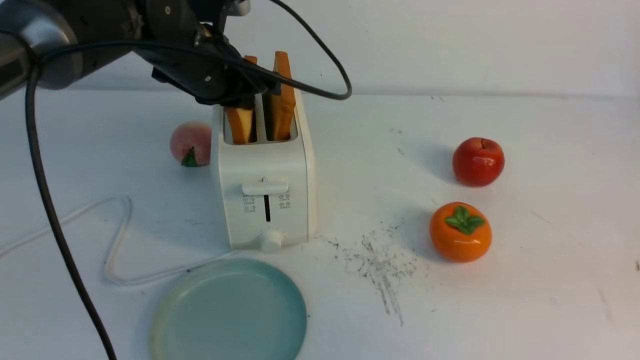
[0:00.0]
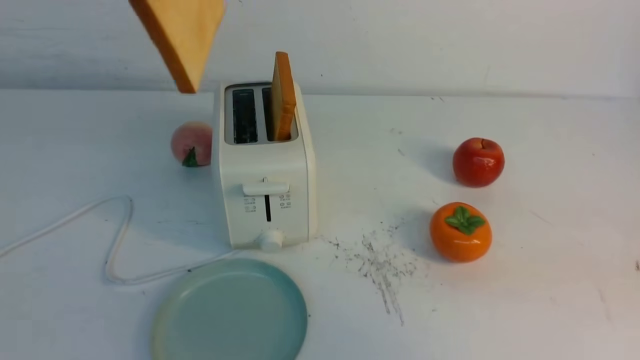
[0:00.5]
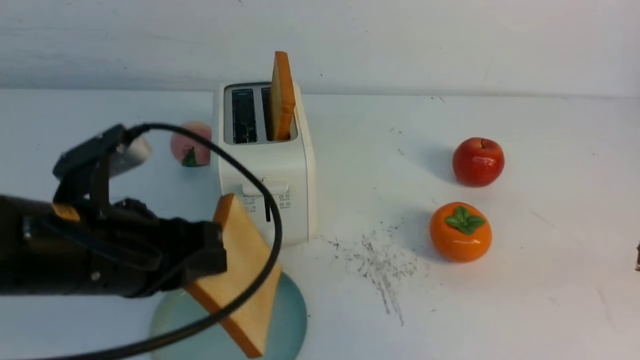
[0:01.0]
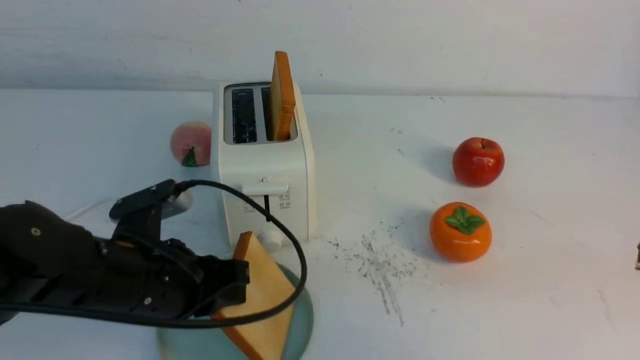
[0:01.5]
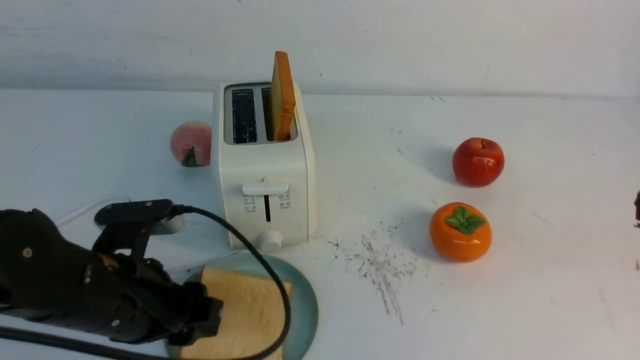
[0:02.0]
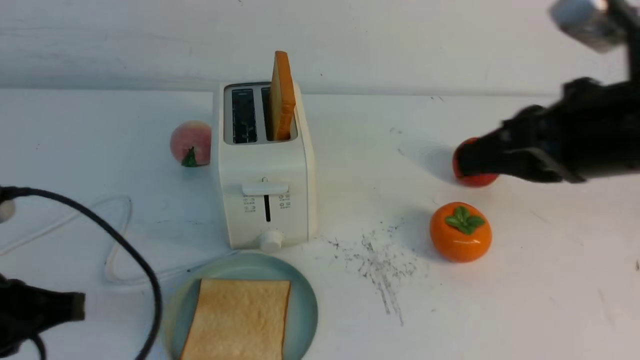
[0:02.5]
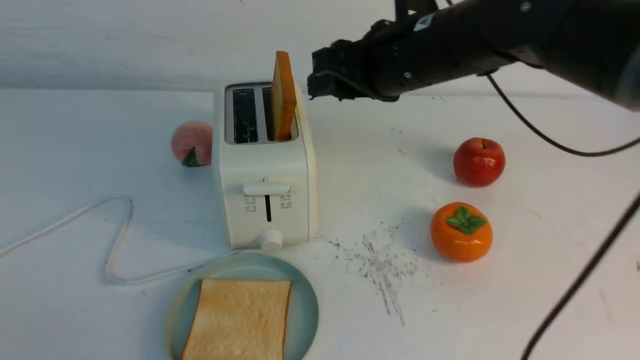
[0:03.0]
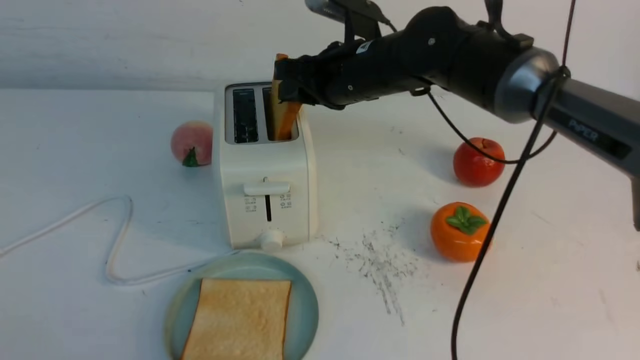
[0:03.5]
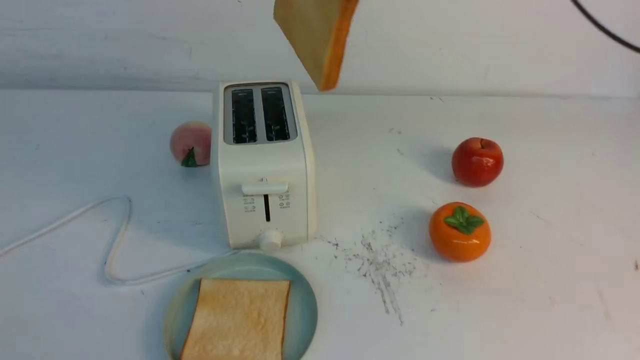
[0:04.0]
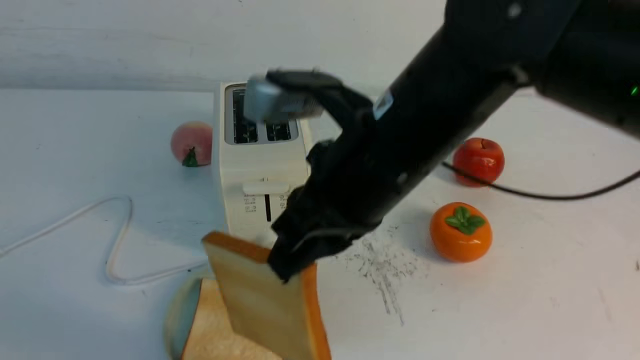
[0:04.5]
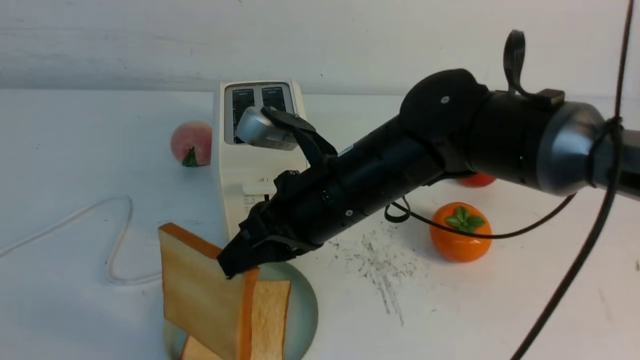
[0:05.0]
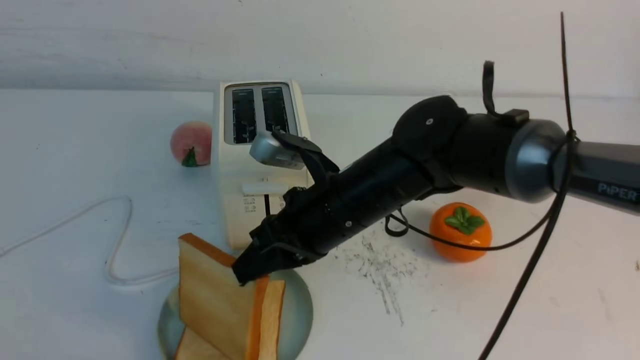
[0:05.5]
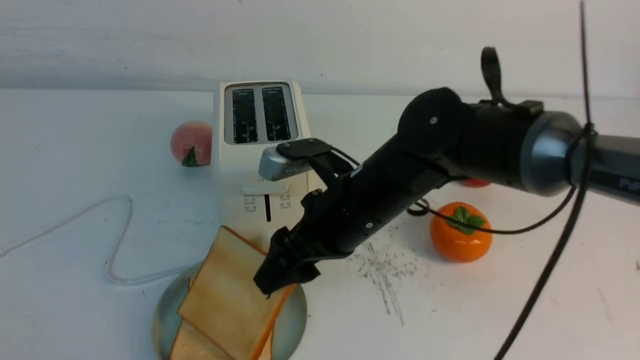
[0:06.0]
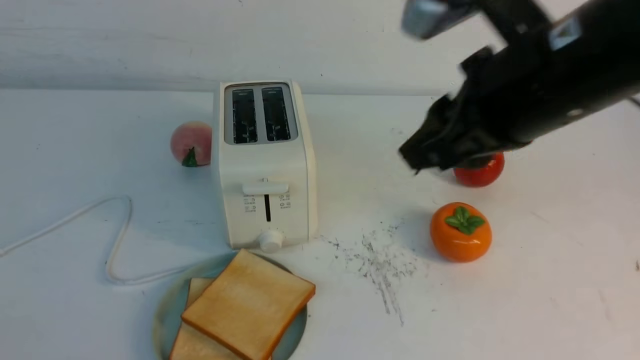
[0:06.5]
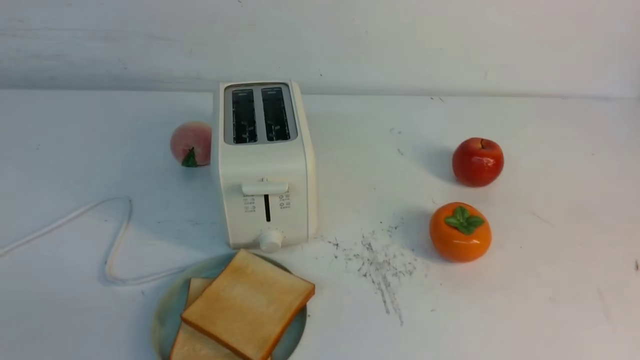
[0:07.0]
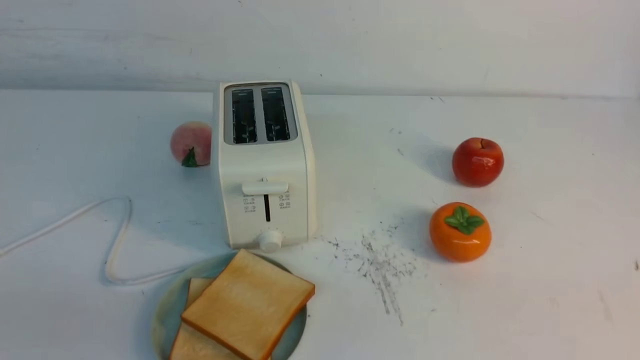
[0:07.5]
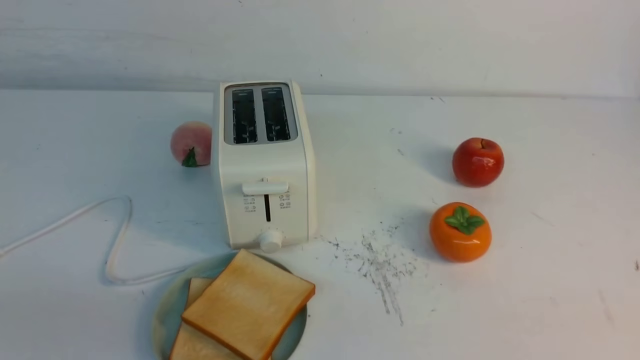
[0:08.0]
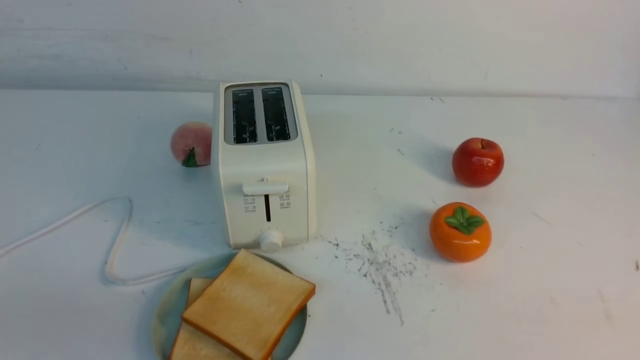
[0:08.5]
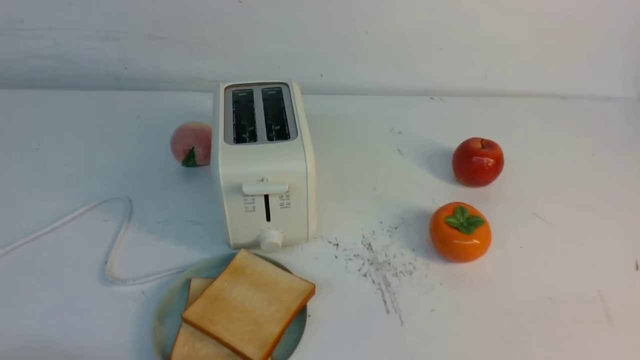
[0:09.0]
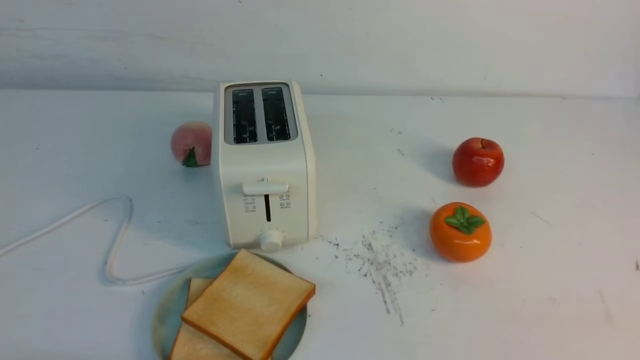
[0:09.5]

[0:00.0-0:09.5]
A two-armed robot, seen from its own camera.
Task of the whole recording: take toasted bread from bread machine on white table place on plate.
Step, 0:00.5 to 0:02.0: use the left arm to put a slice of bread into the empty plate.
Step, 0:02.5 to 0:03.5: use the right arm to take out a slice of bread.
Step, 0:04.0 to 0:06.0: use the right arm to put a slice of bread into the plate.
0:00.0 to 0:02.0: The left gripper goes roughly 25 cm backward and downward, and opens its fingers.
0:02.0 to 0:04.0: The right gripper shifts roughly 25 cm to the left, forward and upward, and opens and closes again; the left gripper moves backward, to the left and upward, roughly 25 cm, and closes its fingers.
0:04.0 to 0:05.5: The right gripper shifts roughly 20 cm downward.
0:05.5 to 0:07.5: The left gripper ends up about 5 cm from where it was. The right gripper shifts some 40 cm to the right and backward, and opens and closes again.

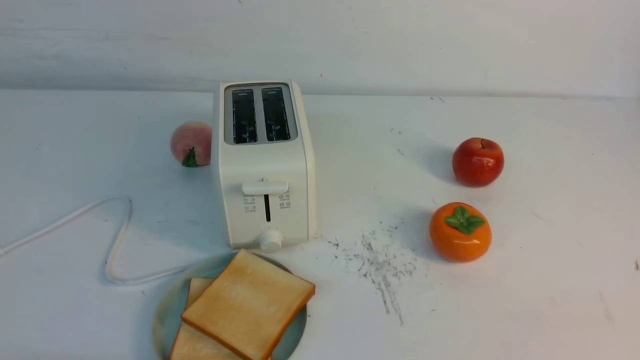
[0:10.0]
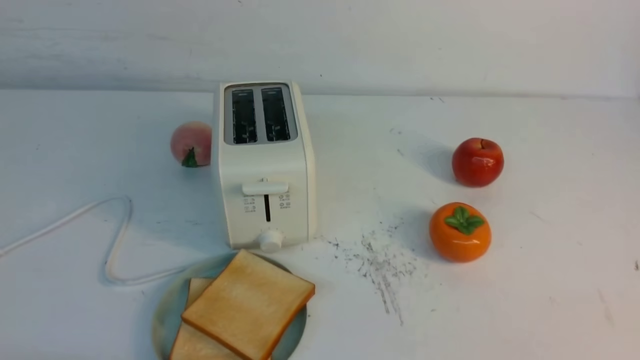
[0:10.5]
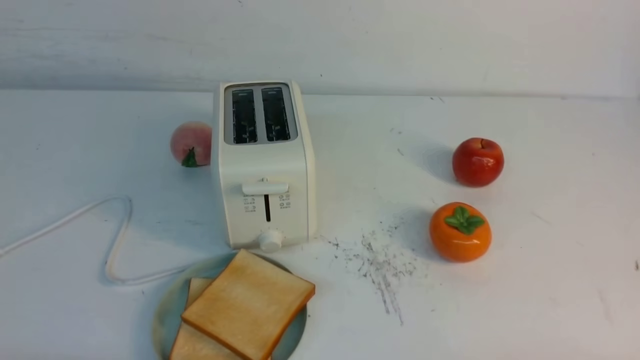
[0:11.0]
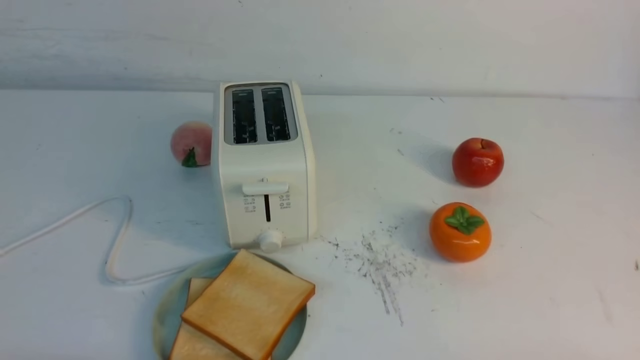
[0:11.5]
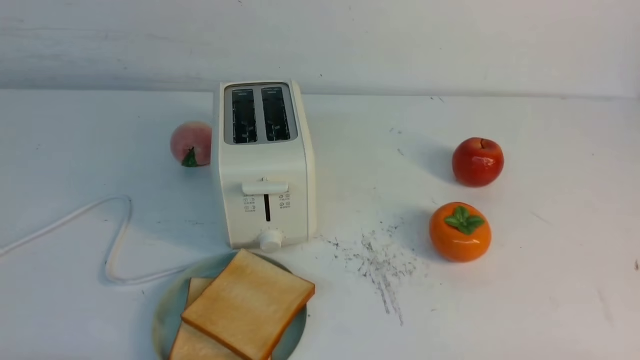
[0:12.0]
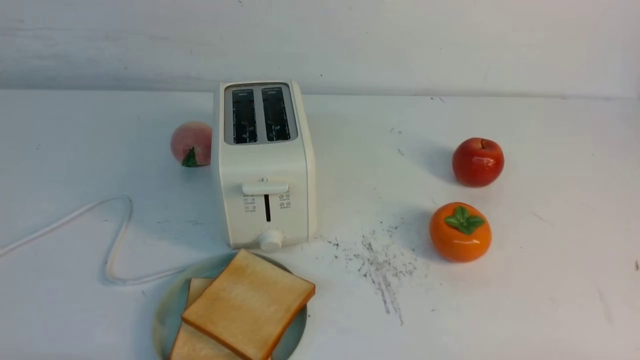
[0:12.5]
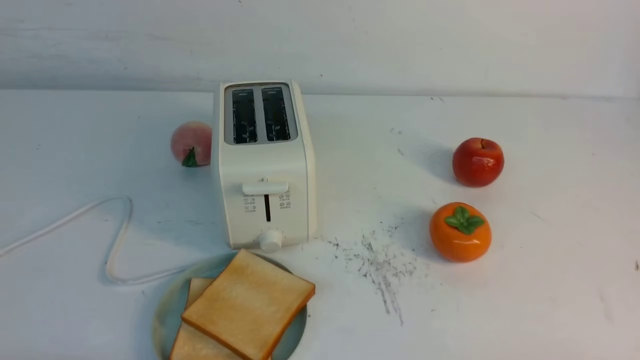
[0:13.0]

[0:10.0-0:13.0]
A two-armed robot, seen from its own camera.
Task of the whole recording: take toasted bread from bread machine on white table place on plate.
0:11.5 to 0:13.0: The two grippers keep their place.
